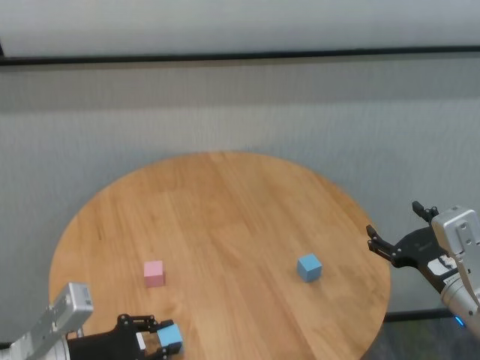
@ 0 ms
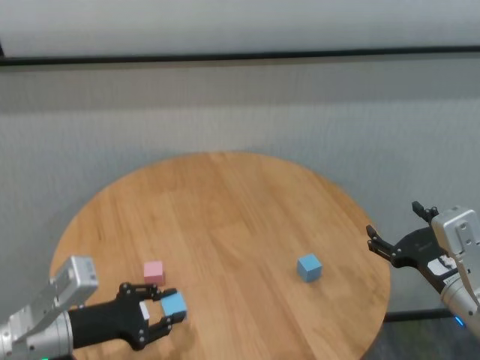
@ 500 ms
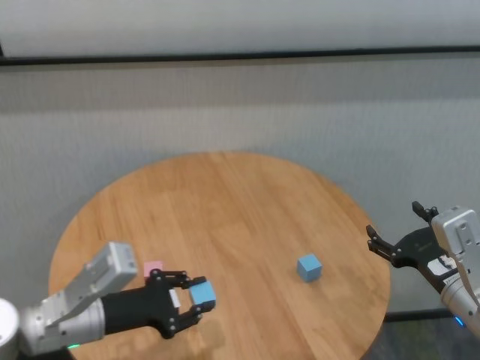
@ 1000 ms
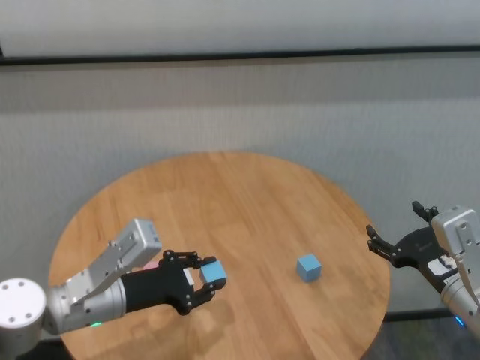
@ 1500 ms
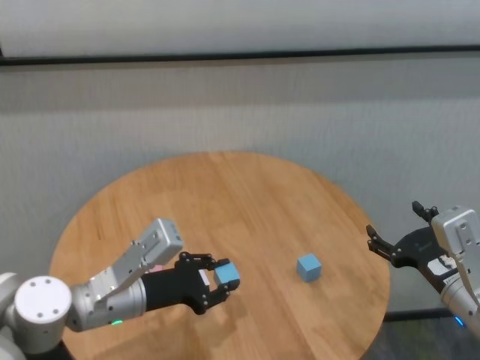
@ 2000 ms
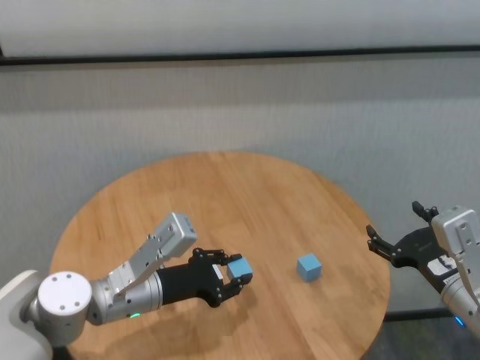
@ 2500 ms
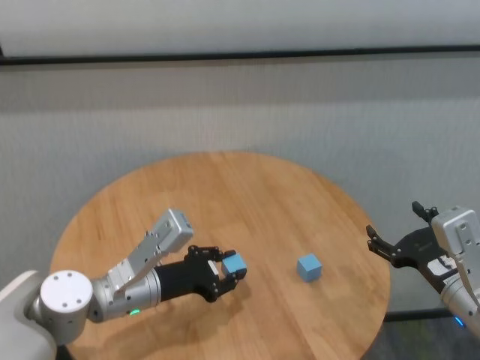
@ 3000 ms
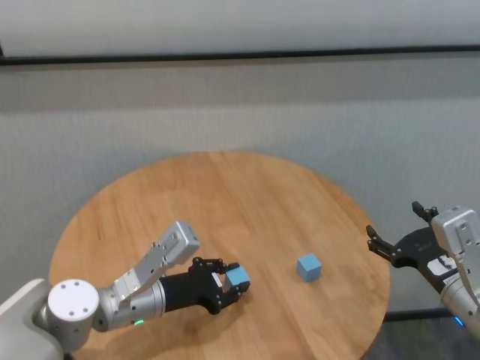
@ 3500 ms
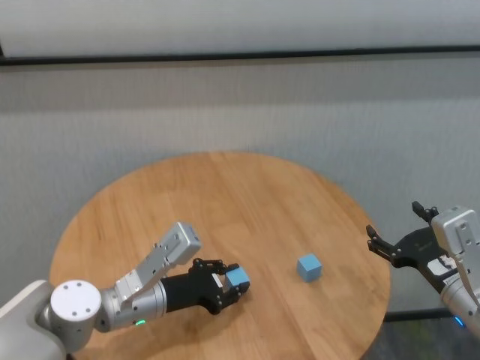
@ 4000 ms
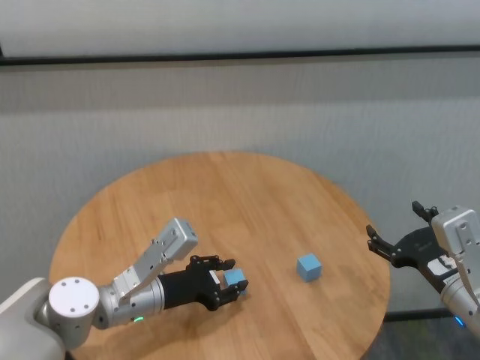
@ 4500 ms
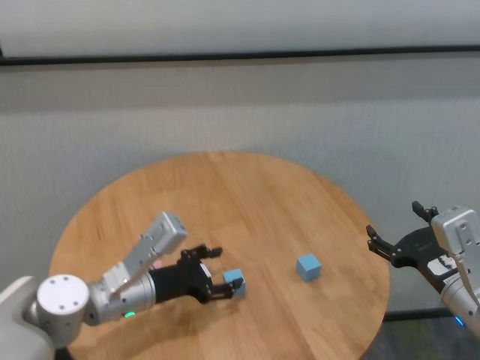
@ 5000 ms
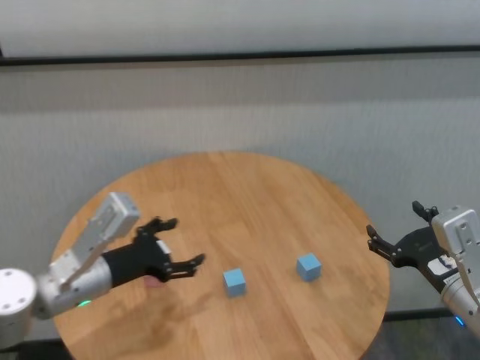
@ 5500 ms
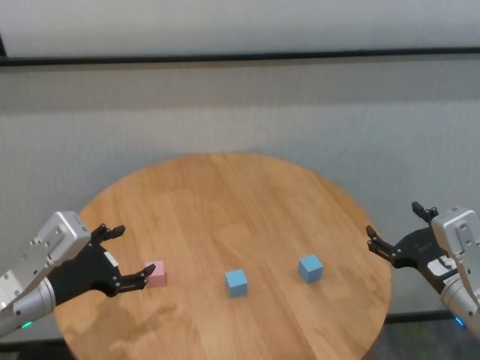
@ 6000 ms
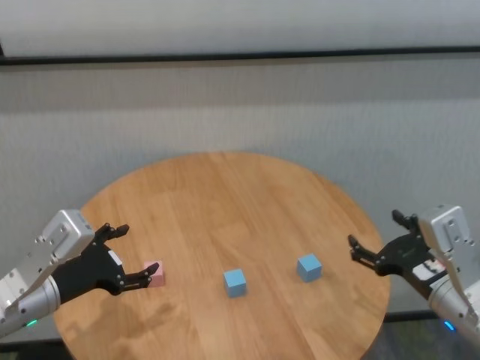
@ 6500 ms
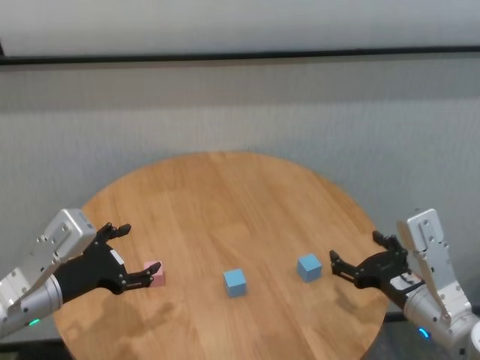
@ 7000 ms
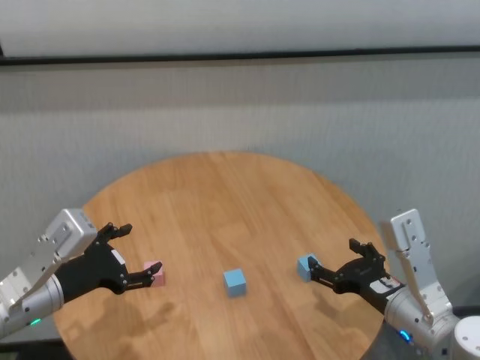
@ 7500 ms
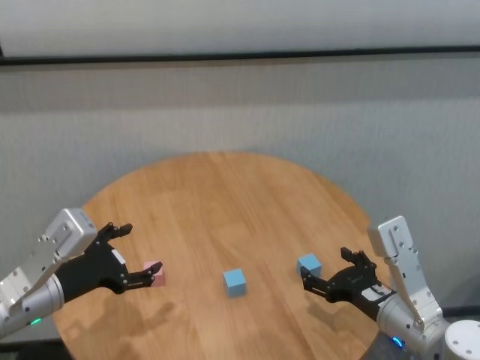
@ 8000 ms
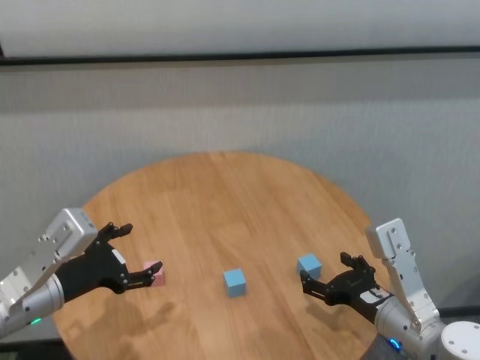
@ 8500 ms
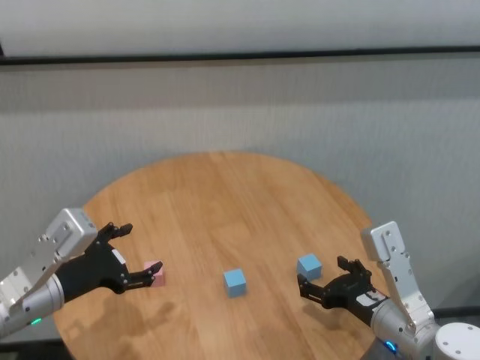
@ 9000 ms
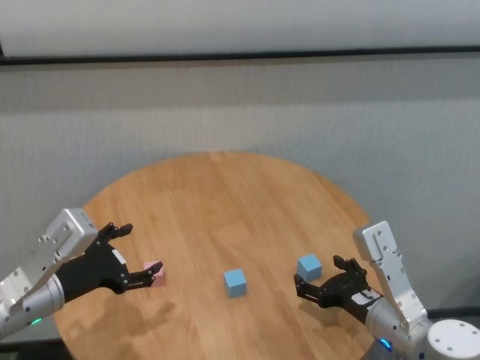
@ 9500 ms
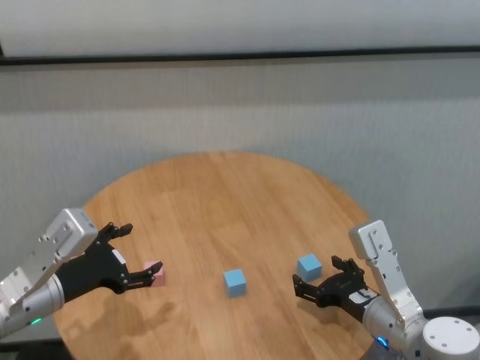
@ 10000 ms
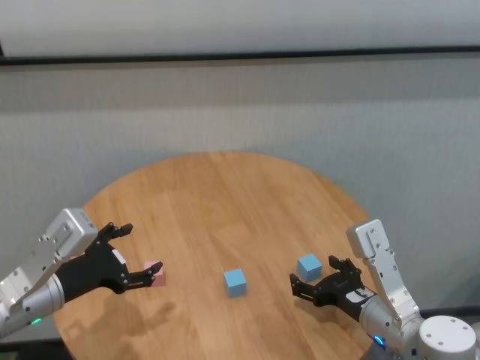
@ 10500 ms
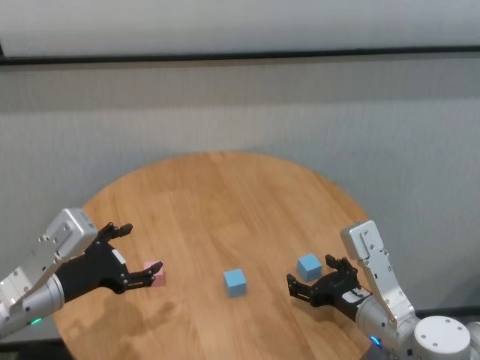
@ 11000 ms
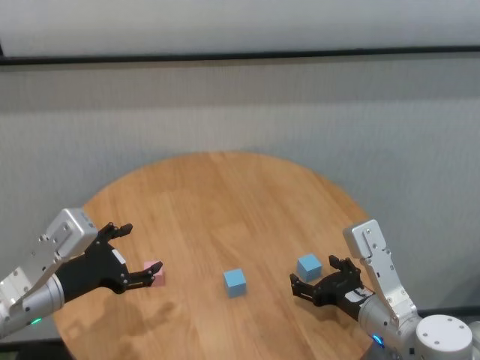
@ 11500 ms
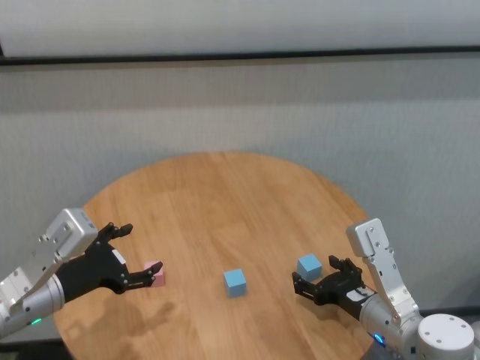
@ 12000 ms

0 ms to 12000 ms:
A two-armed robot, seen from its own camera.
Task of the whole recording: stack building blocks on the table.
Step, 0 ms to 5000 ms: Place the blue building block in the center of table with left gripper.

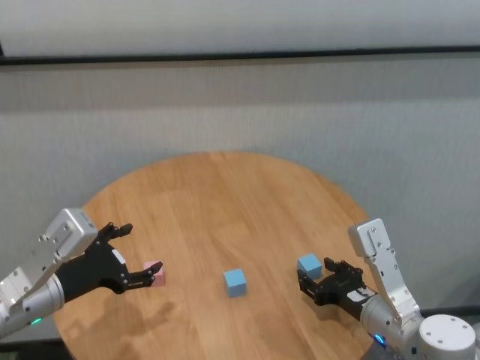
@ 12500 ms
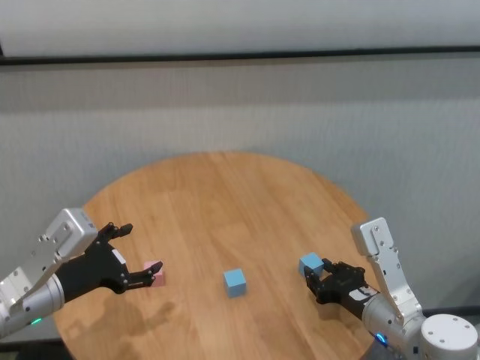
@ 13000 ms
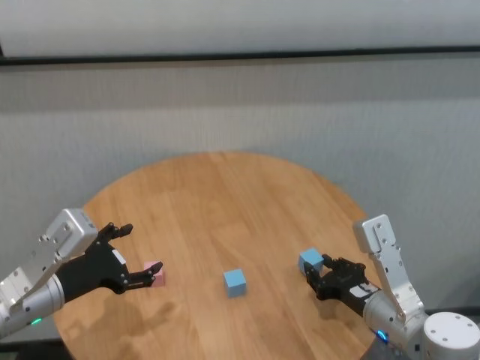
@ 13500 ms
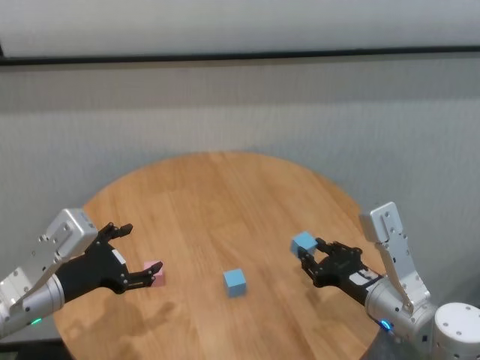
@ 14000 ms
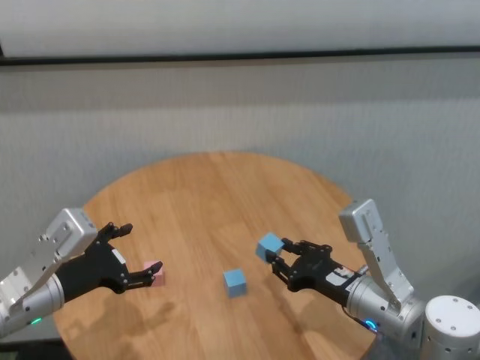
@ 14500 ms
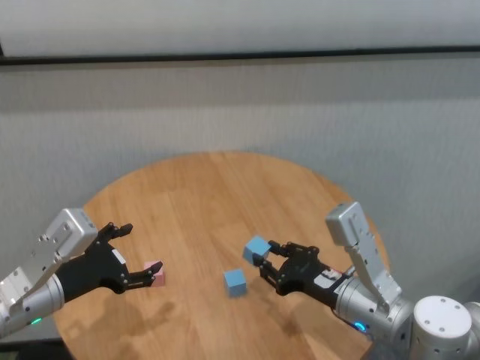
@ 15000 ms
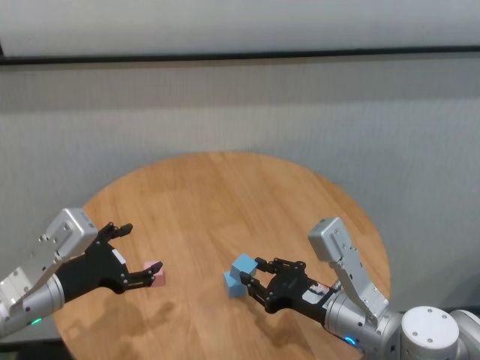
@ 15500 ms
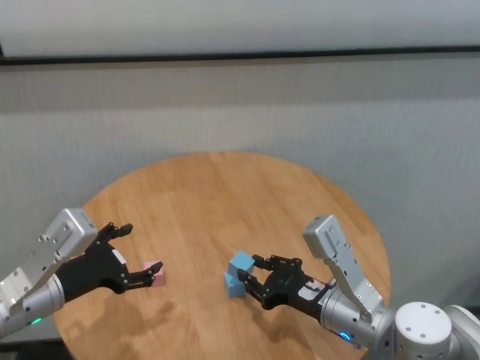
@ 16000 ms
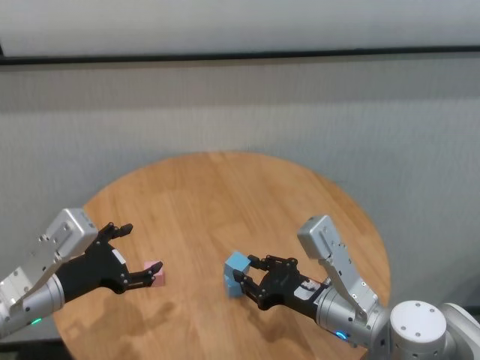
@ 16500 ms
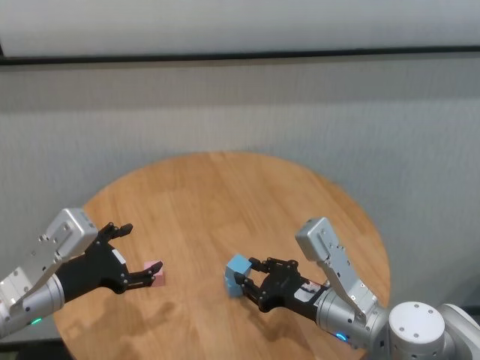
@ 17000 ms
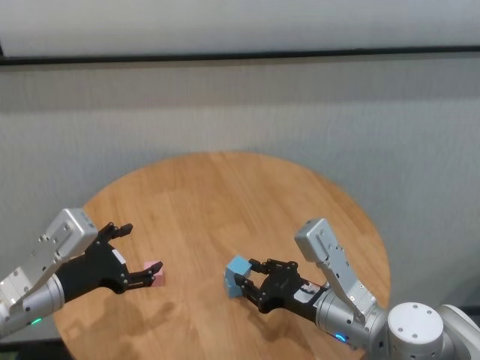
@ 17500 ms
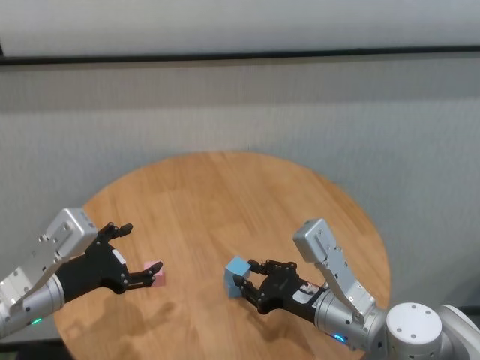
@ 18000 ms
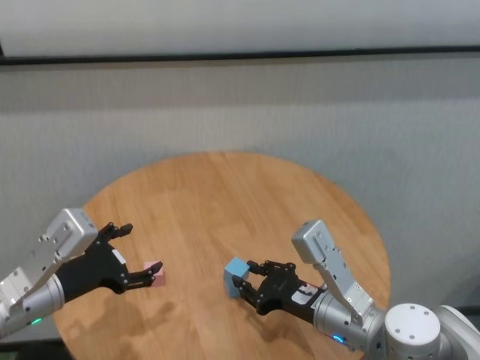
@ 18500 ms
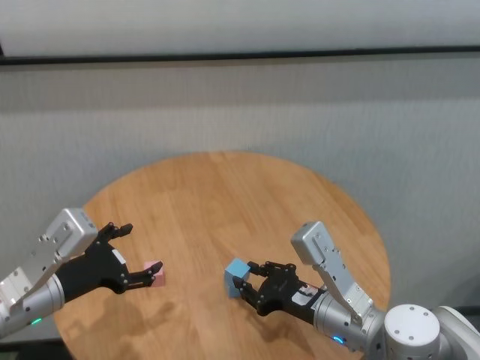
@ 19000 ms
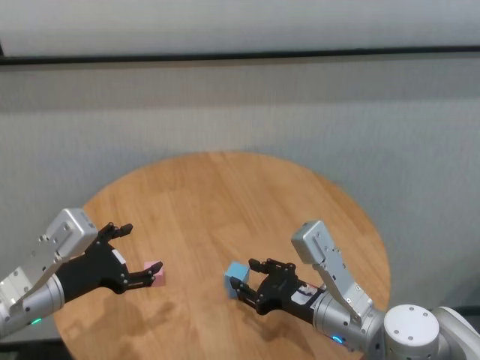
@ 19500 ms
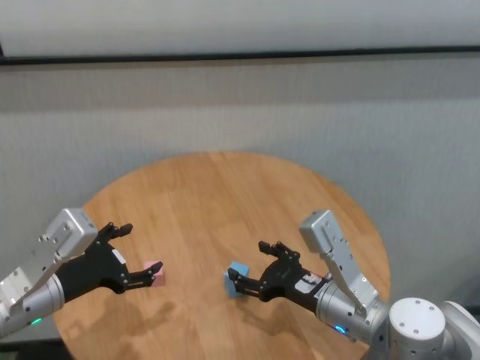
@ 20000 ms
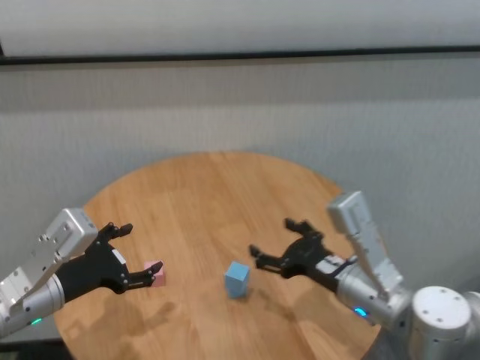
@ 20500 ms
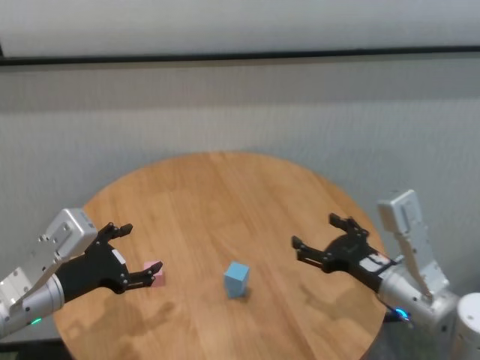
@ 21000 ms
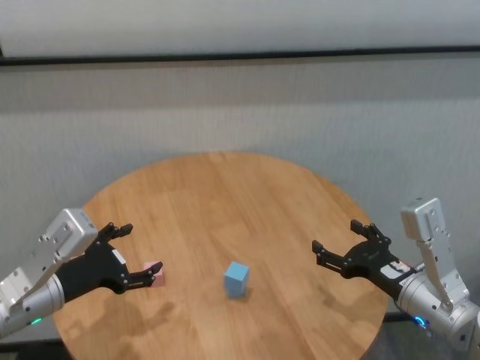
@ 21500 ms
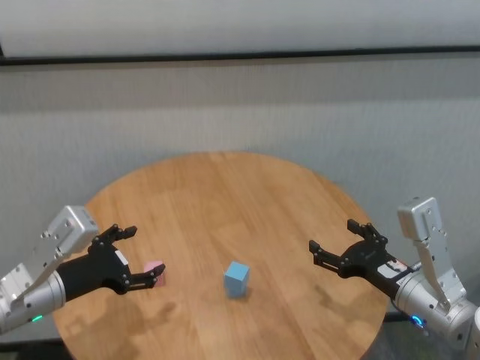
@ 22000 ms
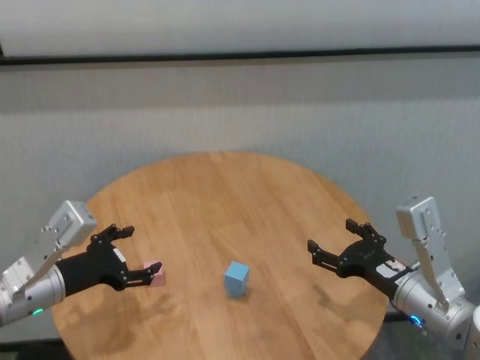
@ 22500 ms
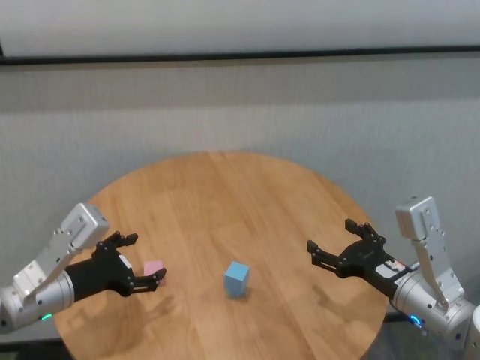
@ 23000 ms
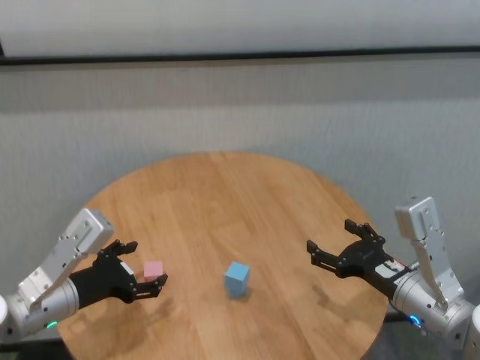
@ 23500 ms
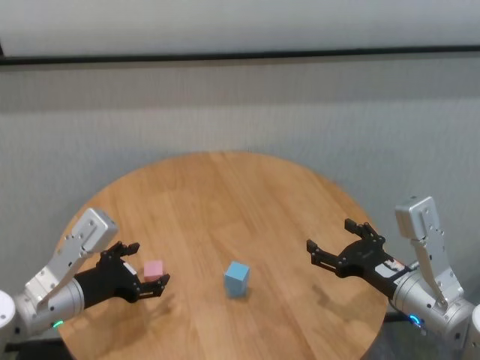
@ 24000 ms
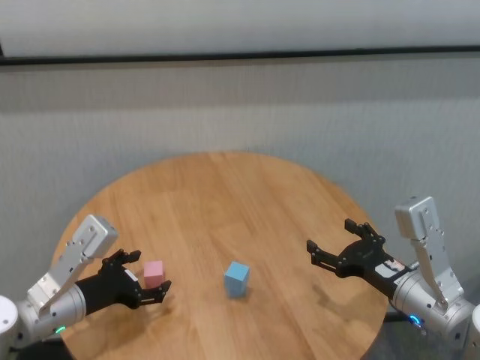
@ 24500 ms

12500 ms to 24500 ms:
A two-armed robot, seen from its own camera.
Task of the whole recording: stack building blocks on the table.
Step, 13000 ms to 19500 ms: Place the blue building block on the blue building blocks with right gripper.

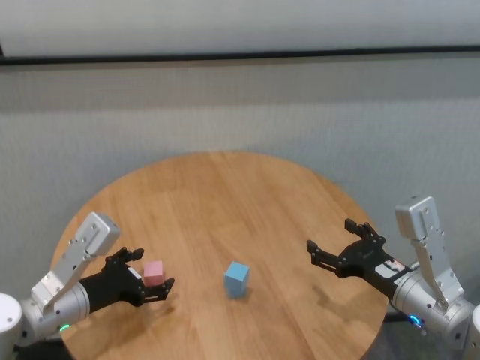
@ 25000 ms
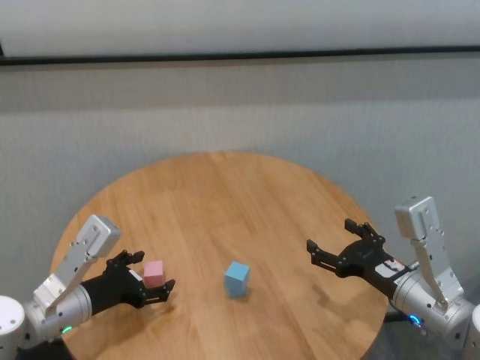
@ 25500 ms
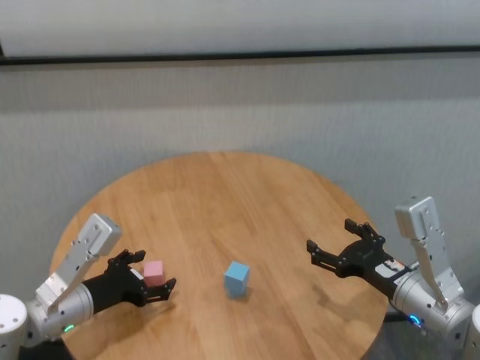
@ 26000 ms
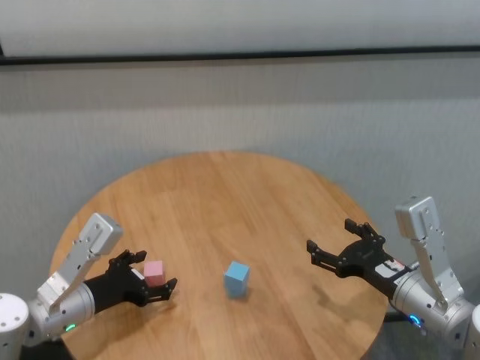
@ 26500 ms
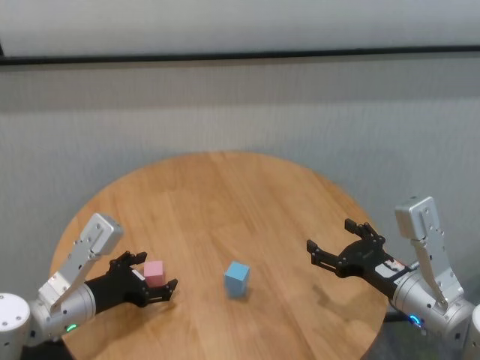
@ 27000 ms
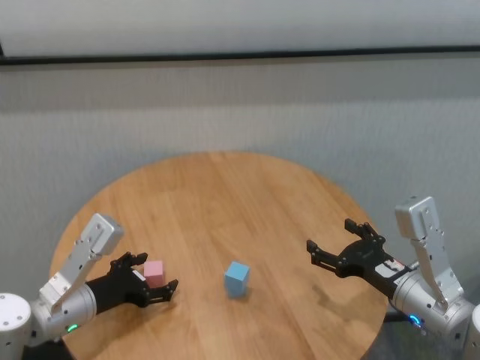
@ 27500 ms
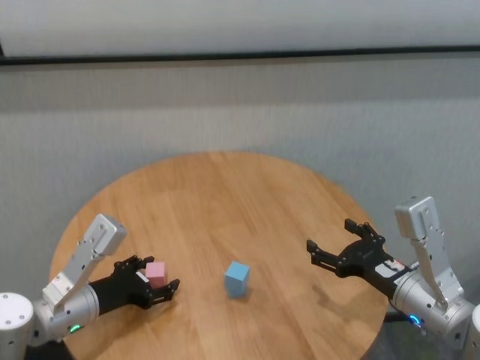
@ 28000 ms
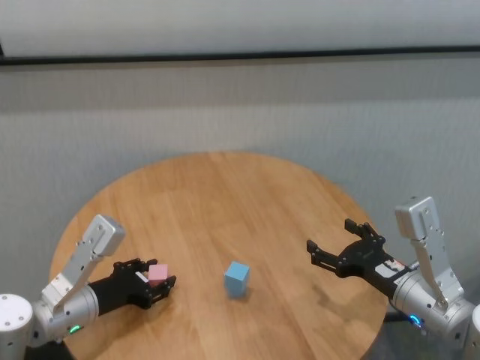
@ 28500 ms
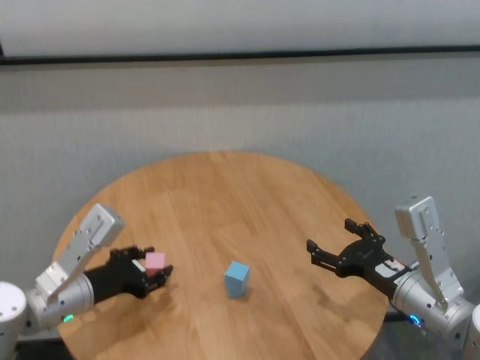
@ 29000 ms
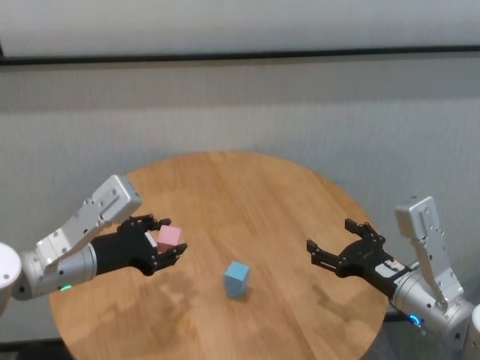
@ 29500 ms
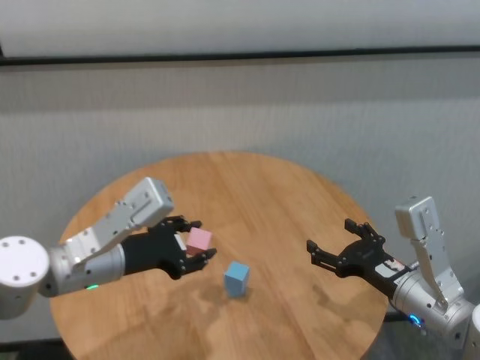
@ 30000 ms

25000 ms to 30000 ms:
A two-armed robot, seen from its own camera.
Task of the whole recording: stack building blocks on the table.
Step, 25000 ms to 28000 ms: Grasp the pink building block with left gripper.
